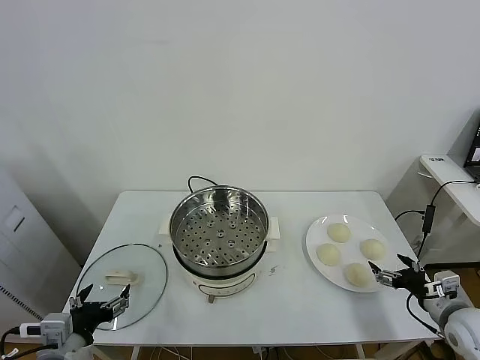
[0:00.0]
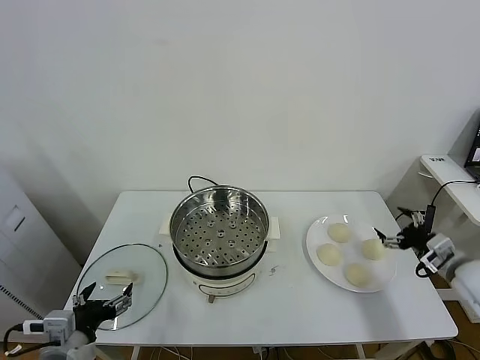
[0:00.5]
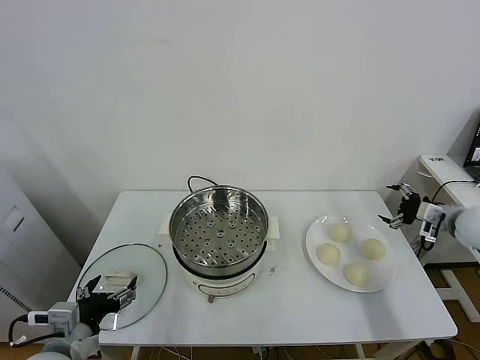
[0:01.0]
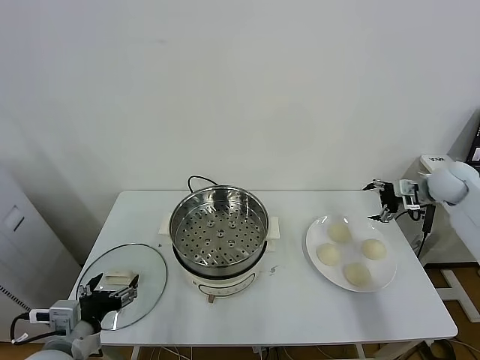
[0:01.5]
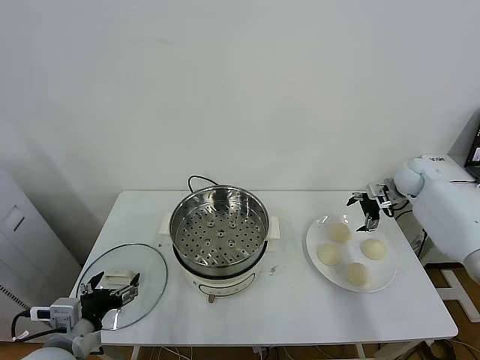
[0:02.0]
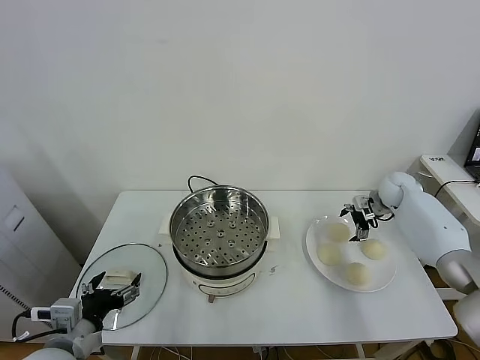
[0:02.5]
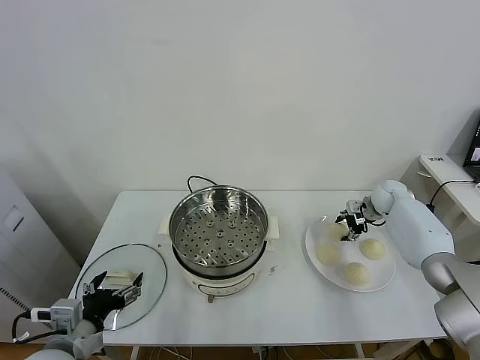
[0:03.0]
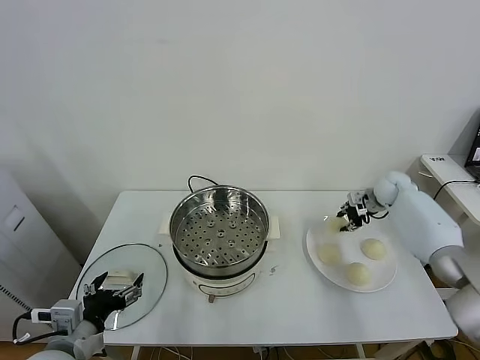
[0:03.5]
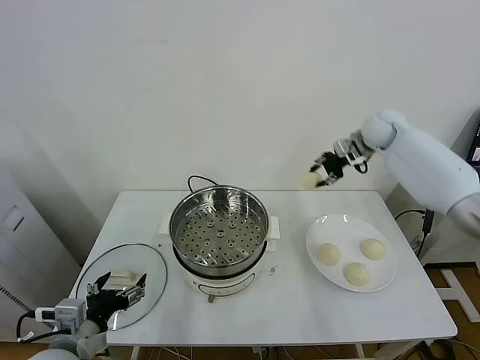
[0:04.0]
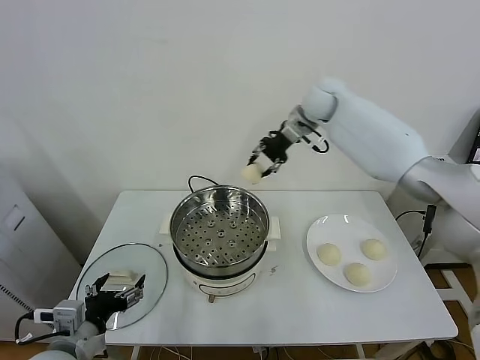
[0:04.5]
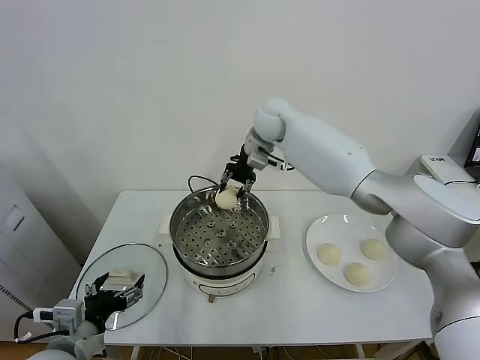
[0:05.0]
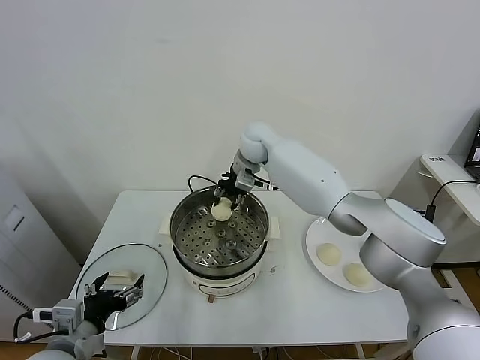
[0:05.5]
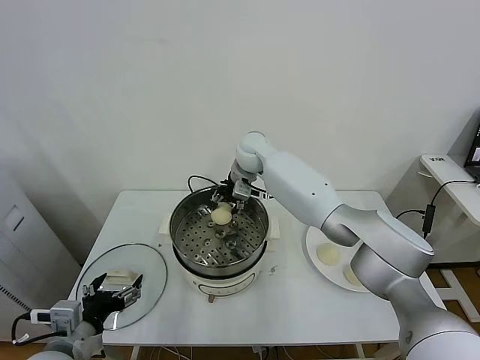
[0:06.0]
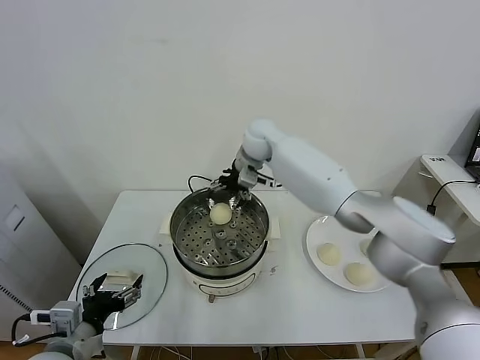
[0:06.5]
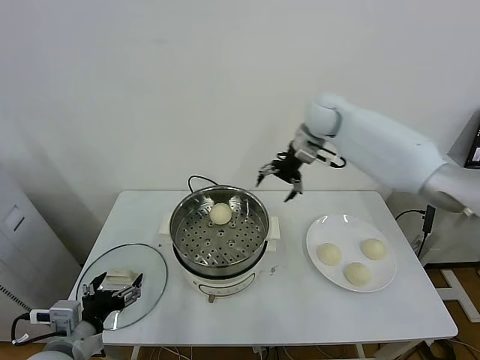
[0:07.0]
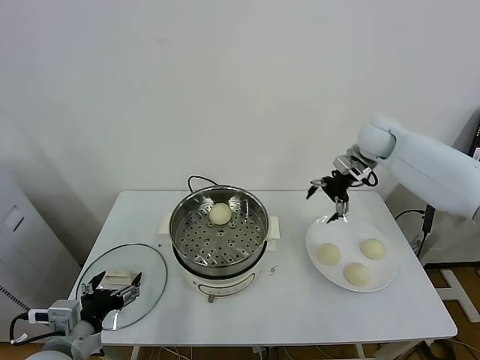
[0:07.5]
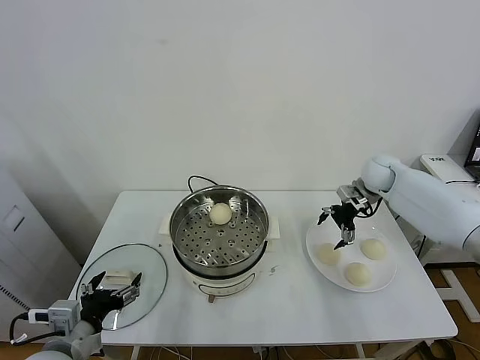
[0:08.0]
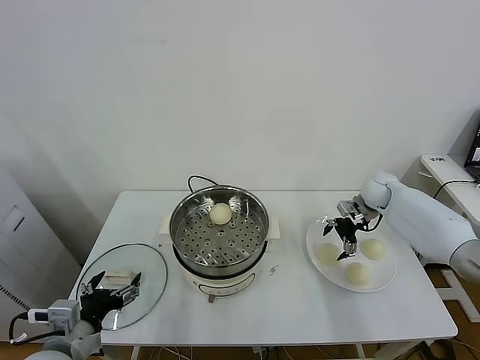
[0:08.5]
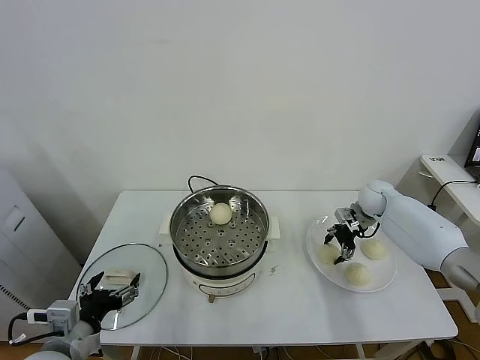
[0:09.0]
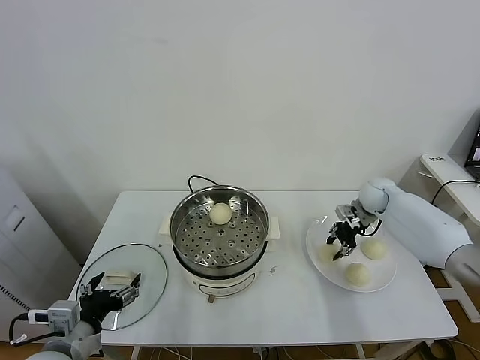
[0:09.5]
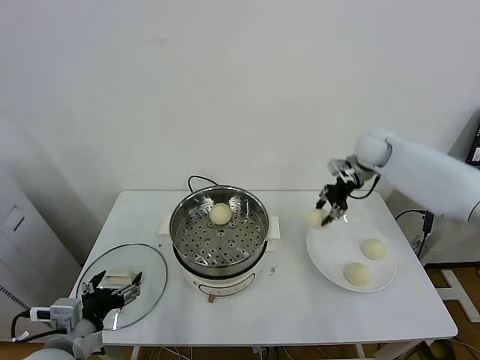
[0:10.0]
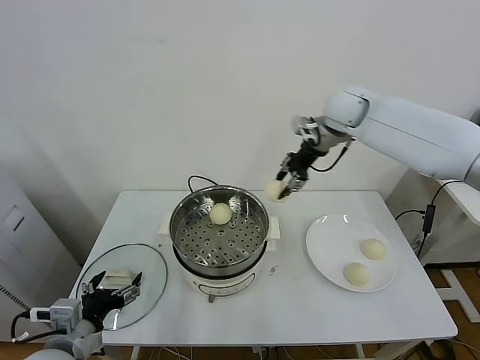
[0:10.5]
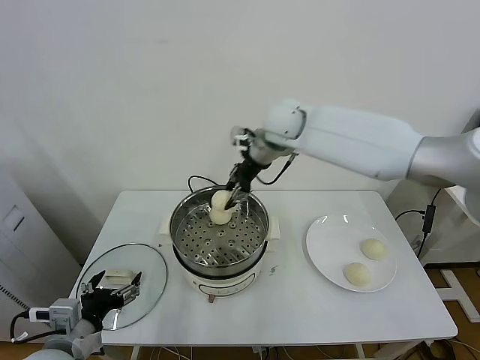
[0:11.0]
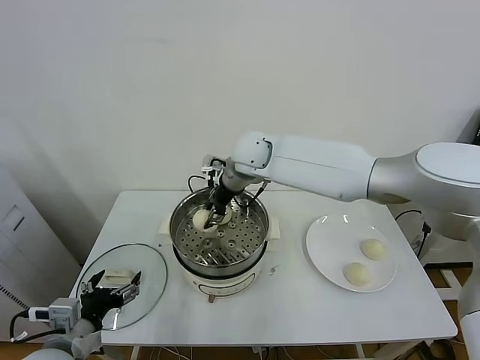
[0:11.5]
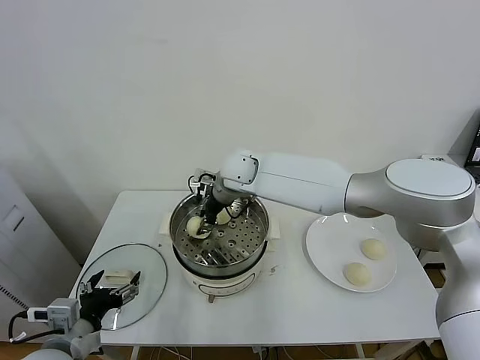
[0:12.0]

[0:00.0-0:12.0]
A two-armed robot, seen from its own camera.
Task of the whole recording: take steamed baozi put them in steamer.
Step, 0.0 to 3.0 s: Grasp the baozi in the plate with right gripper.
Step, 3.5 to 6.0 s: Place the baozi on the steamer with right gripper.
Step, 6.5 to 9.0 s: Grasp the baozi in the plate with right gripper.
2.0 to 4.0 s: The right gripper moves upward and to the left, some 20 cm, and closes its fingers.
4.0 to 6.0 s: The right gripper heads to the left, covering approximately 30 cm, and opens its fingers.
6.0 to 8.0 s: The right gripper heads to the right, covering approximately 35 cm, and opens.
8.0 to 10.0 s: The right gripper is displaced upward by some 10 cm, and closes up.
10.0 to 12.0 s: The right gripper goes about 30 cm to the left.

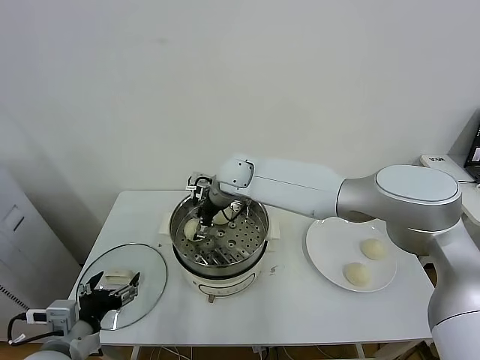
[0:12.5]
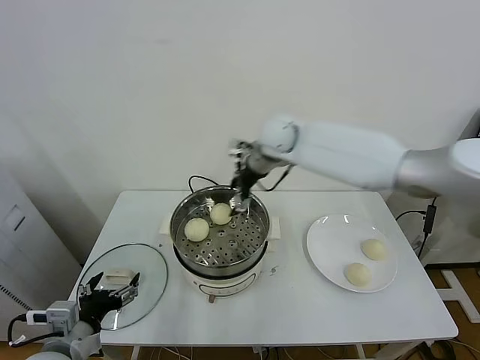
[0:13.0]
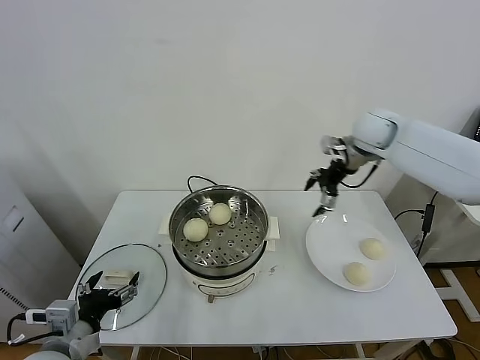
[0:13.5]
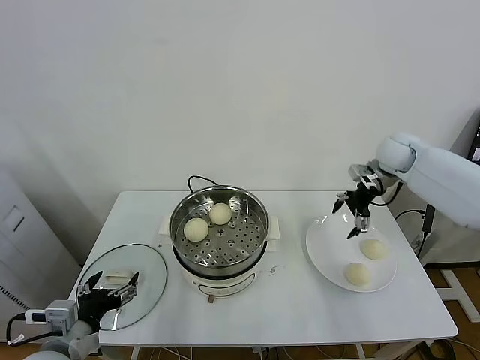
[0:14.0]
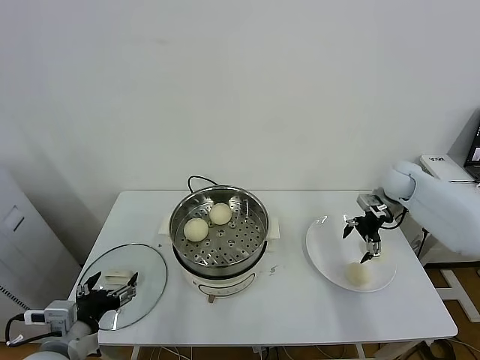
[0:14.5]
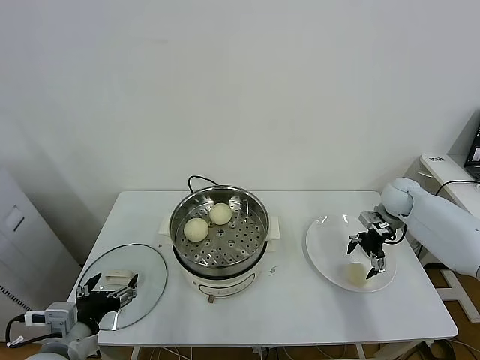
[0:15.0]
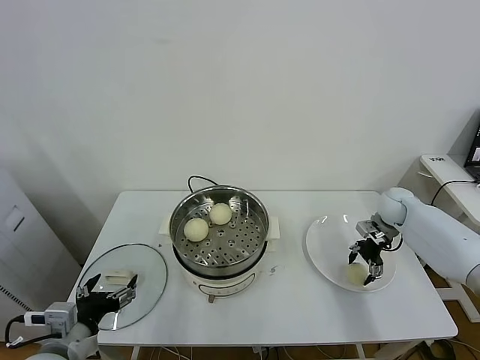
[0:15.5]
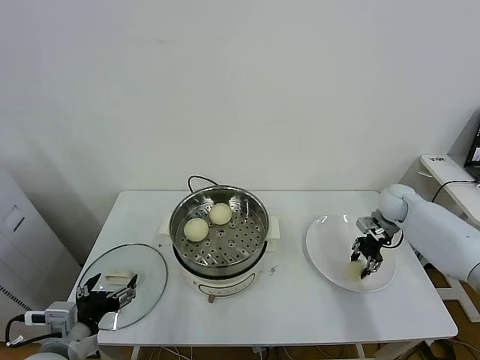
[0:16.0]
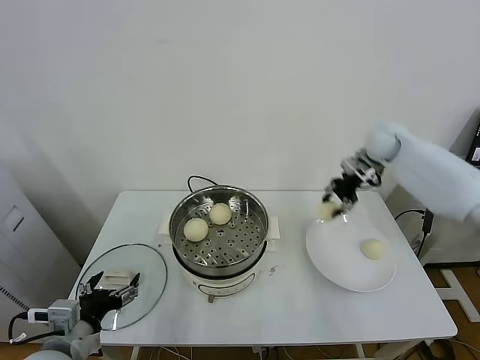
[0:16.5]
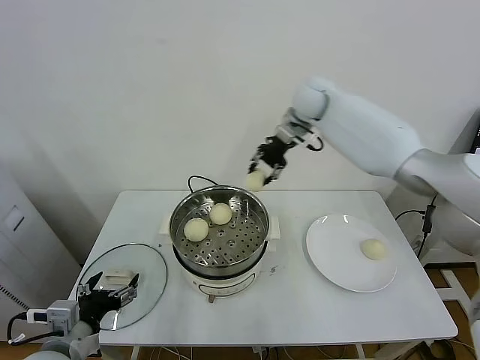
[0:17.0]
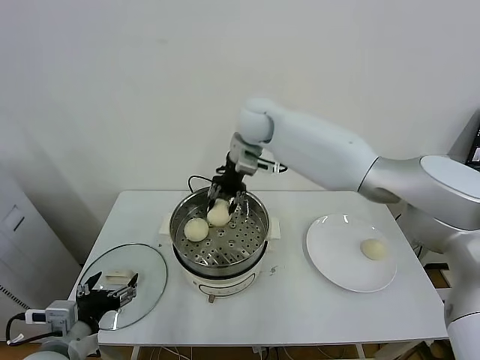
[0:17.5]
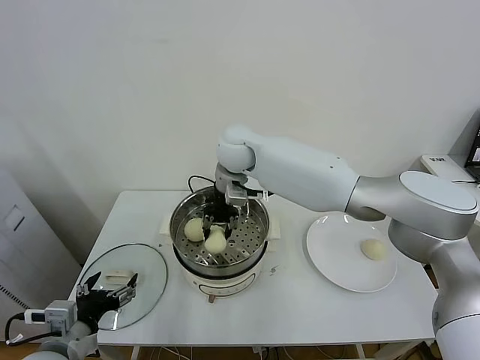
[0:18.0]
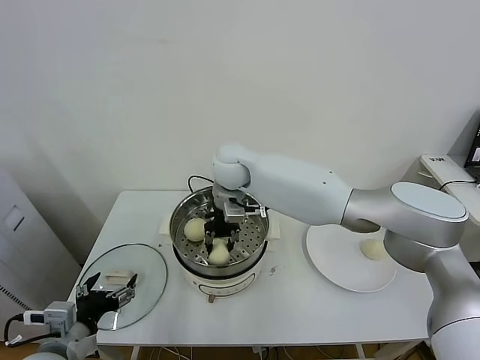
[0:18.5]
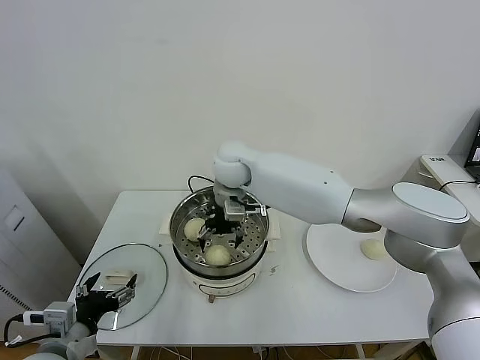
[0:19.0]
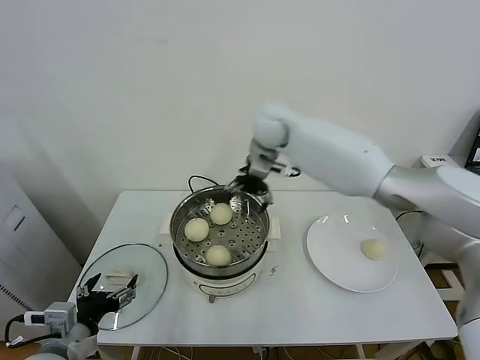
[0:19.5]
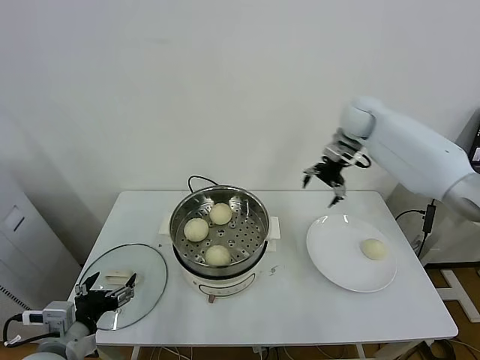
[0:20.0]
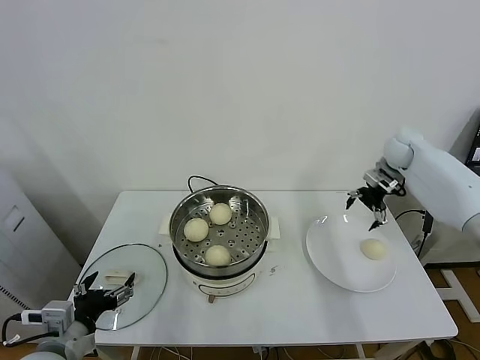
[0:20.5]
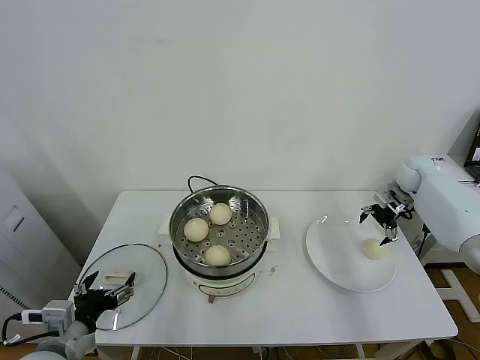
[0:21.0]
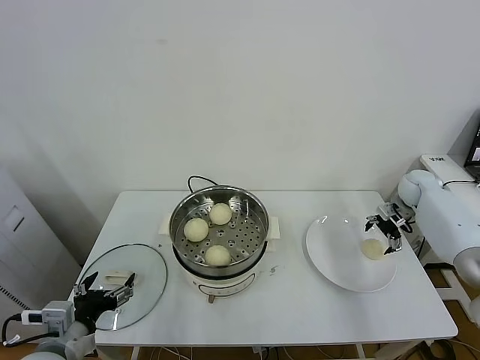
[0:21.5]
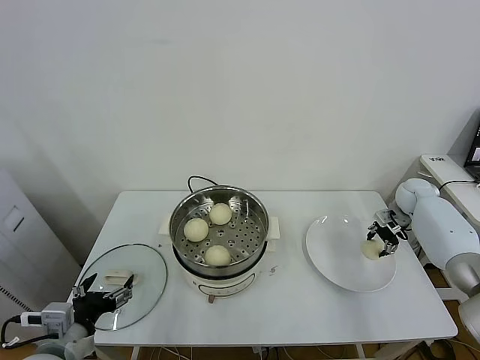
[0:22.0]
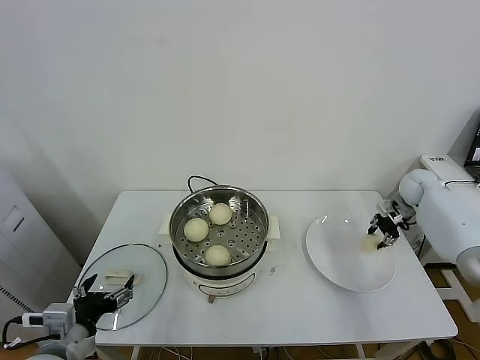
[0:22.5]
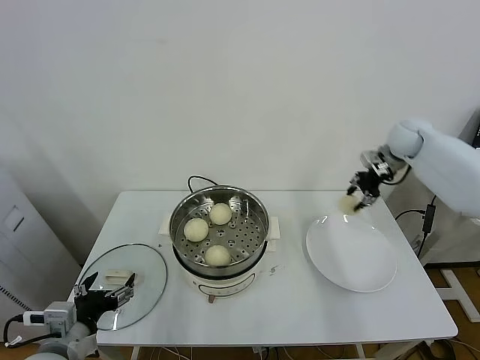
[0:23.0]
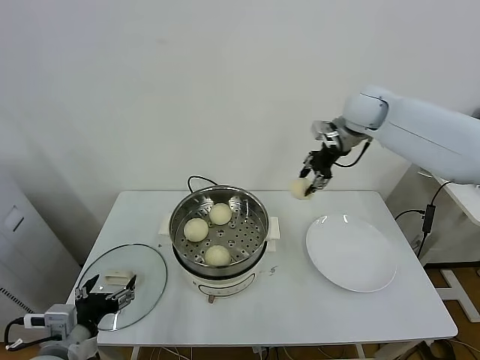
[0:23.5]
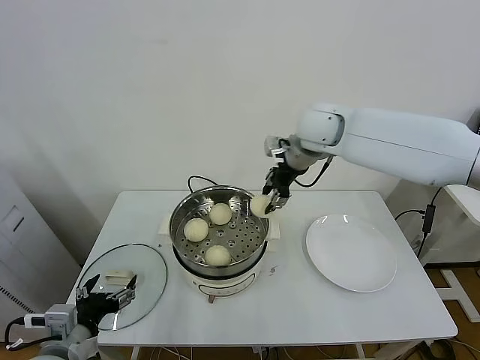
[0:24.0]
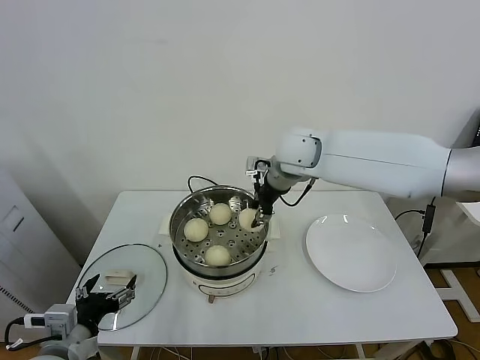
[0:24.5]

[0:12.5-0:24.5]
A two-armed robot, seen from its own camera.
Task of the whole recording: take steamed baozi put them in steamer.
Step, 13.0 to 15.5 s: Grasp the baozi in the plate with right gripper.
Step, 16.0 to 19.0 s: Place the baozi on the steamer with right gripper.
Step, 19.5 to 22.0 s: Grasp the baozi in the plate with right gripper.
12.5 to 14.5 s: The right gripper is displaced to the right by about 40 cm.
14.5 to 16.5 s: The right gripper heads upward and to the left, covering roughly 15 cm, and closes up.
16.5 to 18.5 s: The right gripper heads to the left, covering about 35 cm.
18.5 to 20.5 s: The right gripper travels to the right by some 40 cm, and opens its fingers.
20.5 to 22.5 s: The right gripper shifts approximately 10 cm downward and to the right, and closes up.
22.5 to 24.5 s: The right gripper goes roughly 40 cm to the left and upward.

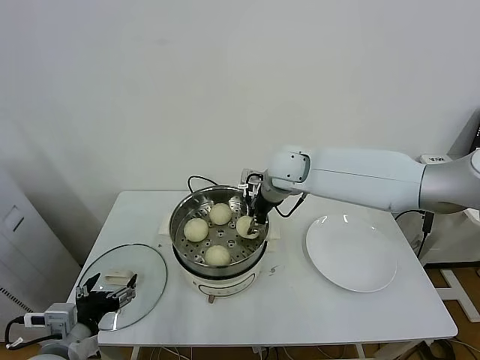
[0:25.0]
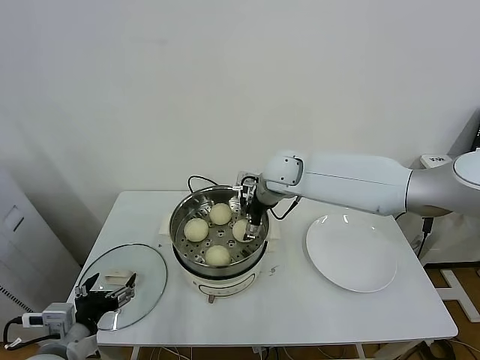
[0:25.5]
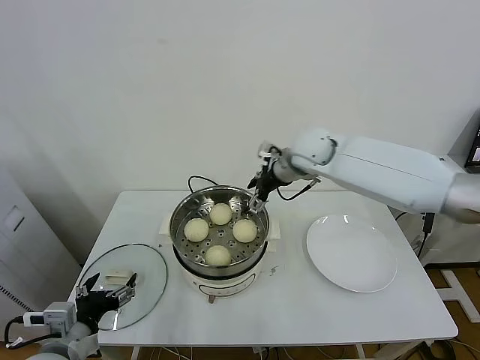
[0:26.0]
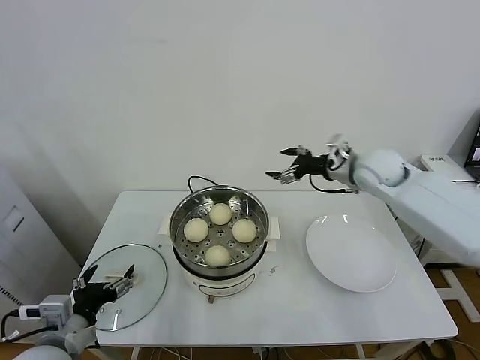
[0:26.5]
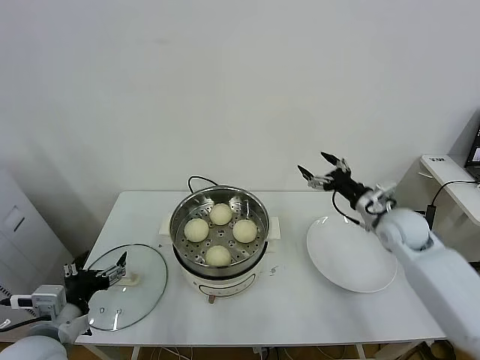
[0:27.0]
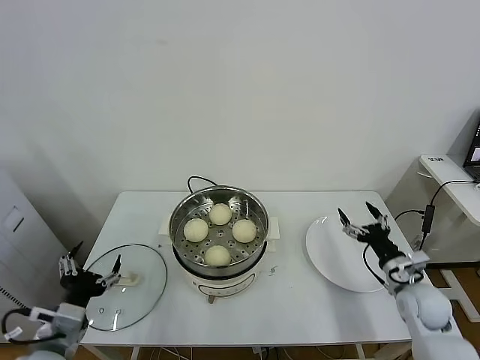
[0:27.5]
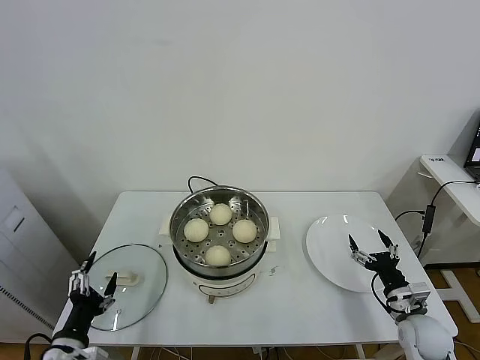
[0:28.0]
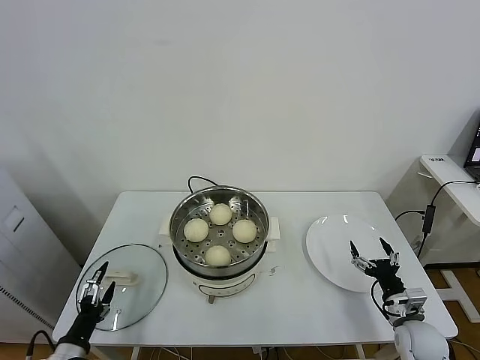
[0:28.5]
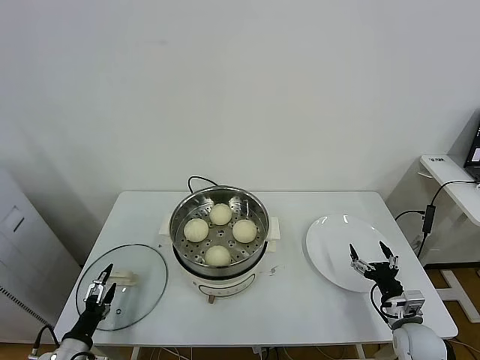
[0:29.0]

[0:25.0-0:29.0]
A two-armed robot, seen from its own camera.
Task of the whole recording: take steamed baozi put them in steamer.
25.0 to 27.0 s: The right gripper shifts about 30 cm to the right and downward, and opens its fingers.
27.0 to 29.0 s: The left gripper travels downward by about 20 cm. Meanwhile the right gripper goes about 25 cm downward and backward.
